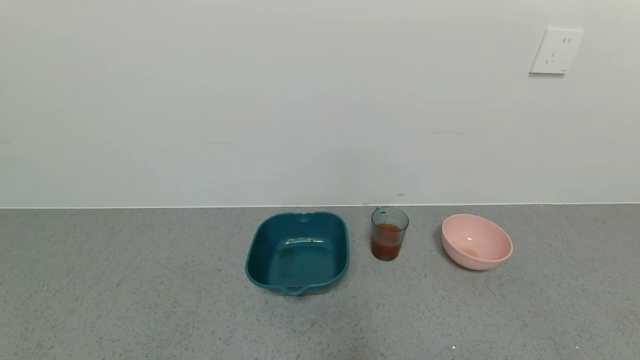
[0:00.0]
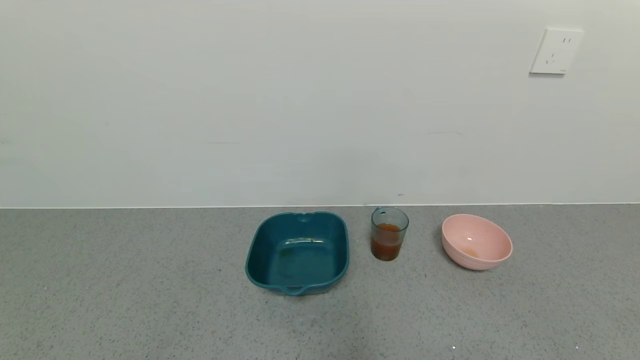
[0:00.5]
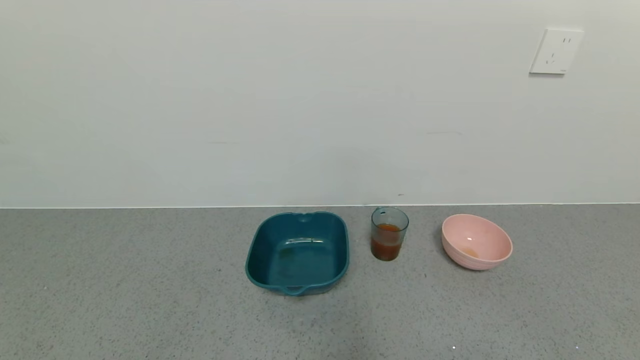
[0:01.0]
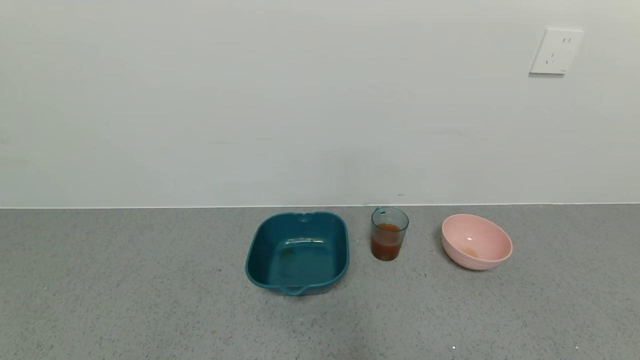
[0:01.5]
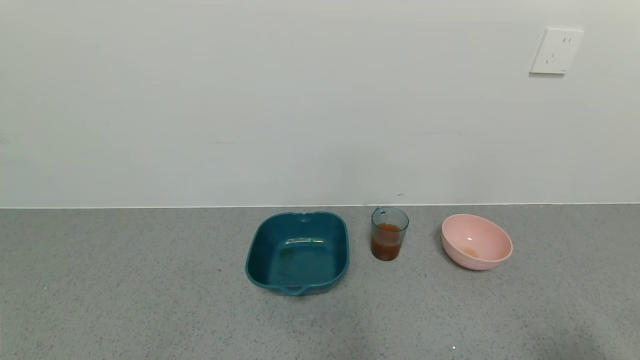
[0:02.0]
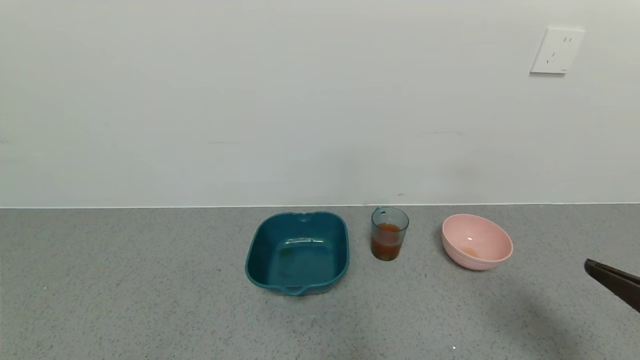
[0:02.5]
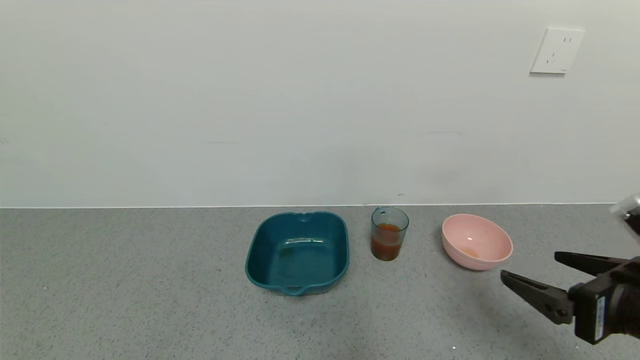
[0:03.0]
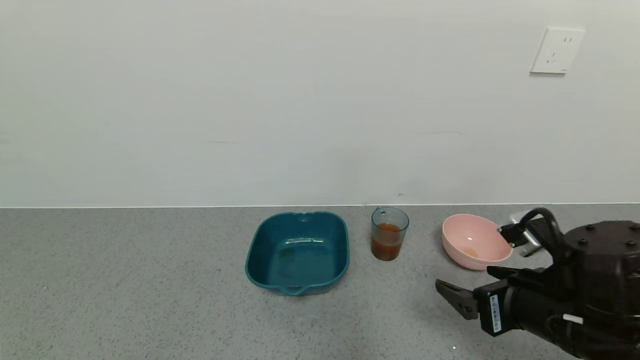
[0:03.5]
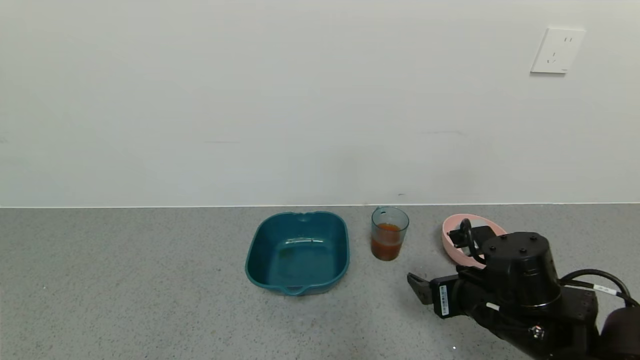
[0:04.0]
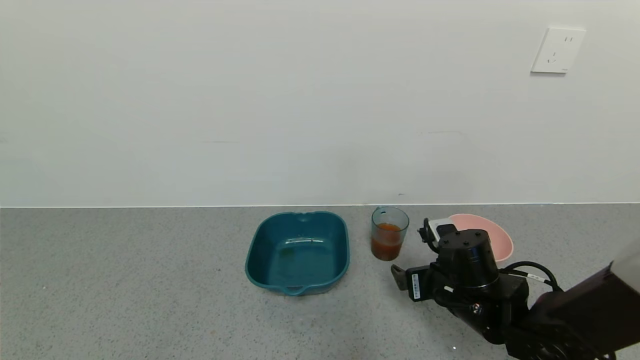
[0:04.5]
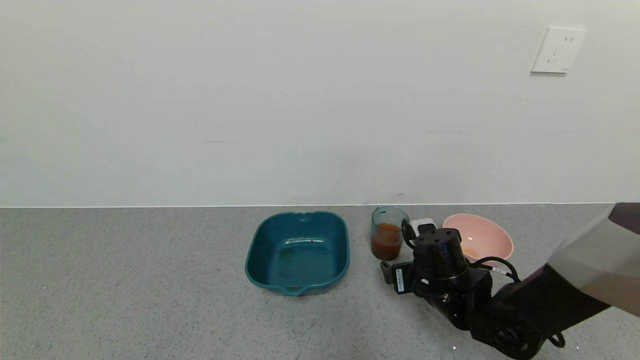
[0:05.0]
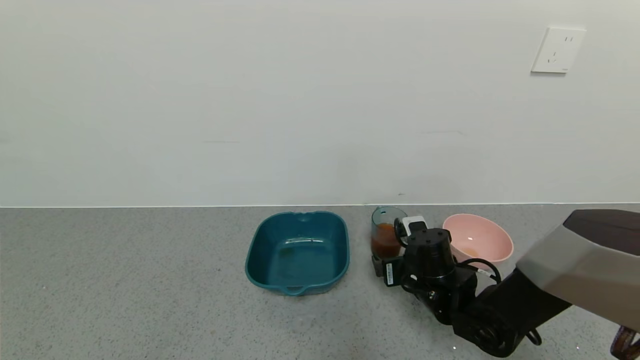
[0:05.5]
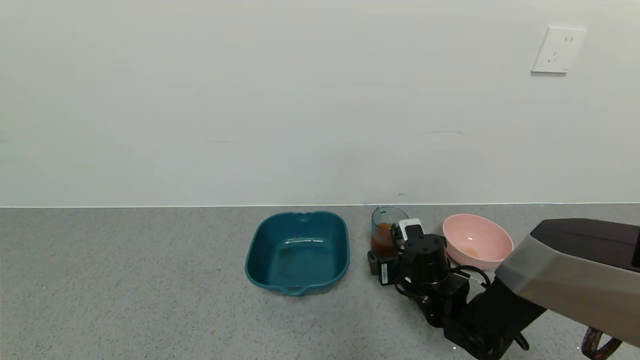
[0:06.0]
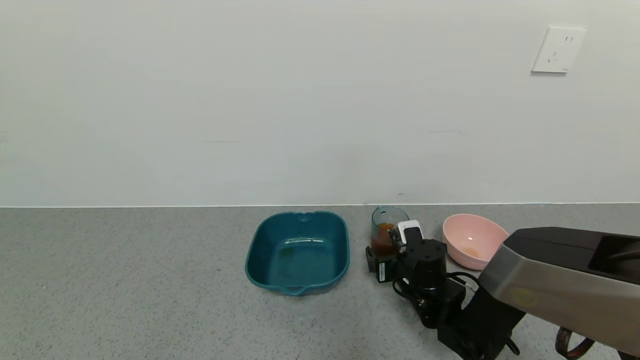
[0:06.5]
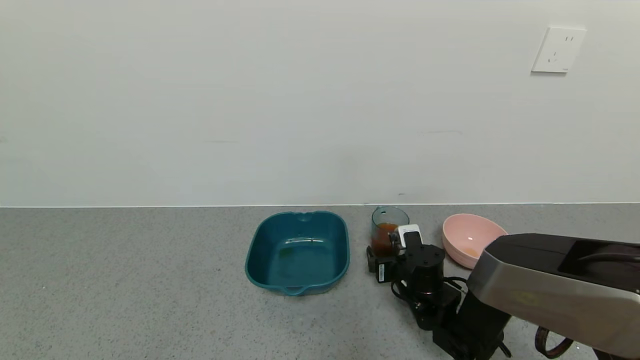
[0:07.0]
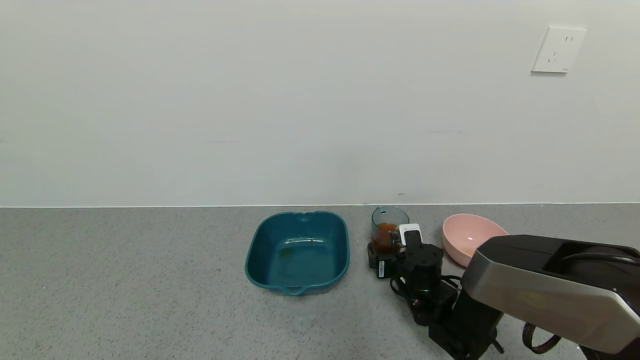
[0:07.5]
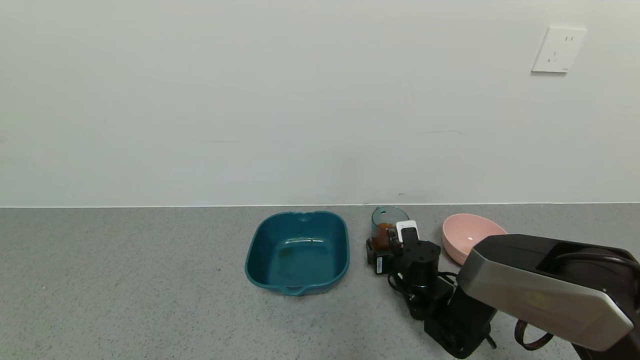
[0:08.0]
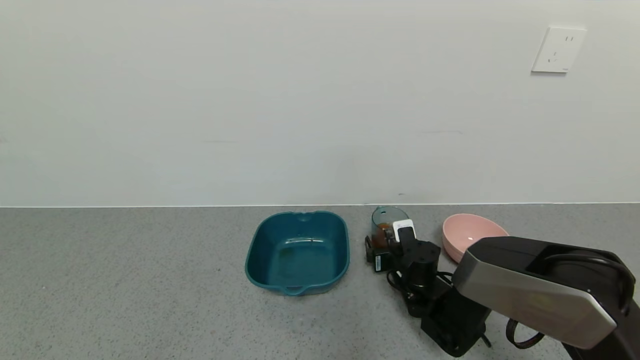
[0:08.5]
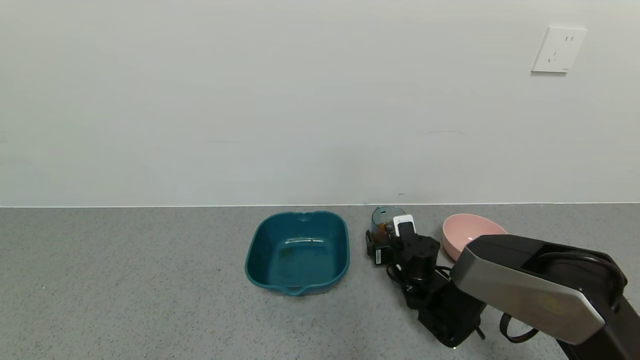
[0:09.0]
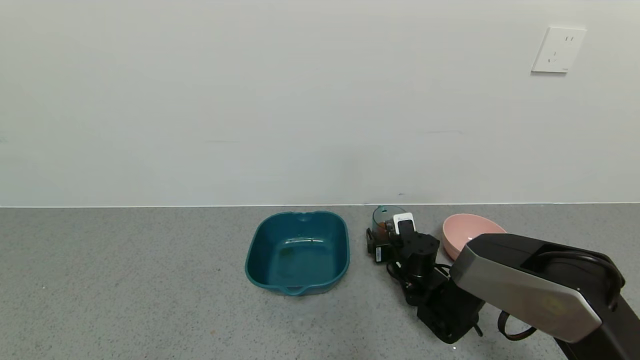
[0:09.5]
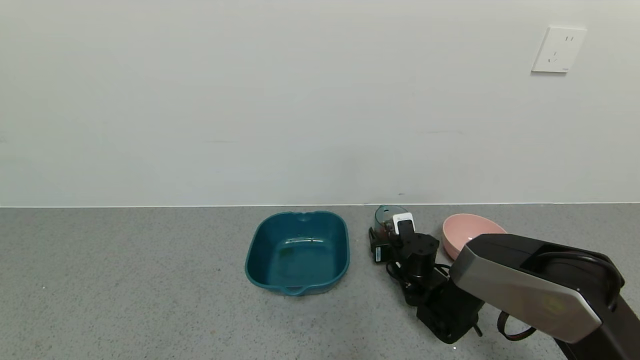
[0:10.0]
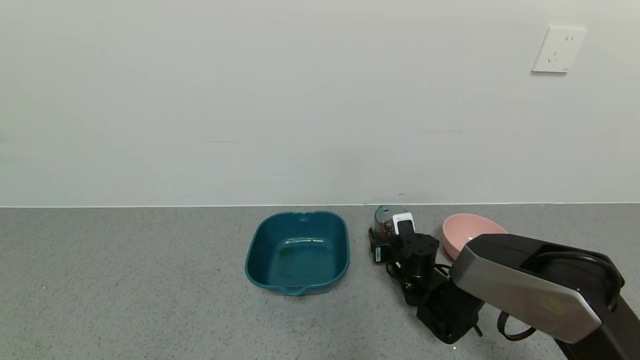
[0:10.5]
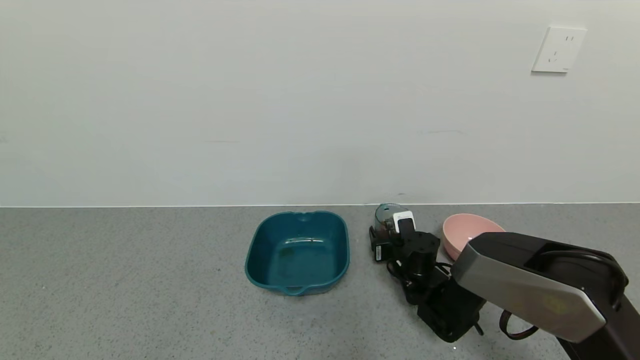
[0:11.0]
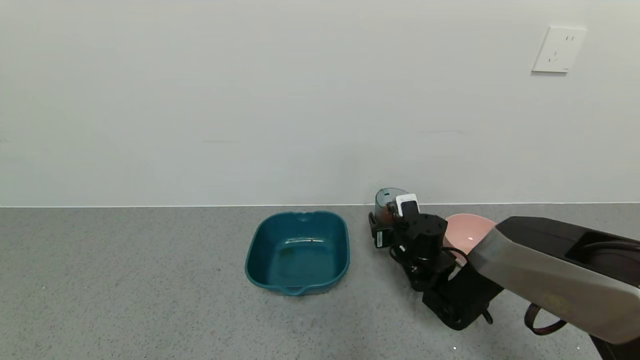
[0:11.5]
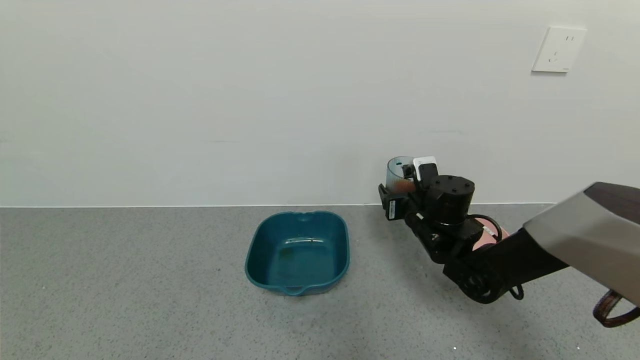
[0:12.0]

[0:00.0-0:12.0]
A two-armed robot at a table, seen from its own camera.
Task of the whole recording: use a gripper to pick up the cup and pour the liquid into a bowl or tray.
0:02.0 to 0:04.0: The right gripper shifts approximately 30 cm forward, to the left and downward.
0:04.0 to 0:06.0: The right gripper moves forward, downward and to the left, roughly 15 cm.
0:06.0 to 0:08.0: The right gripper shifts by about 5 cm.
0:08.0 to 0:10.0: The right gripper closes its fingers.
0:10.0 to 0:12.0: The right gripper is displaced upward by approximately 15 cm.

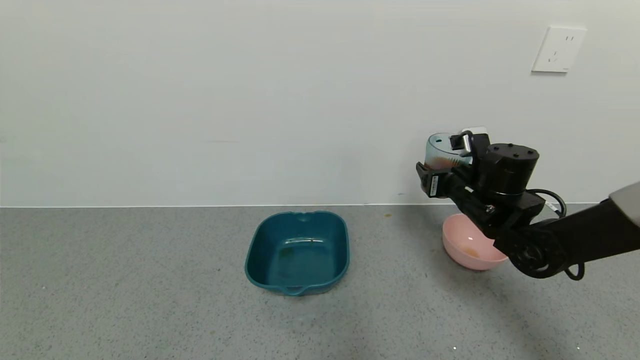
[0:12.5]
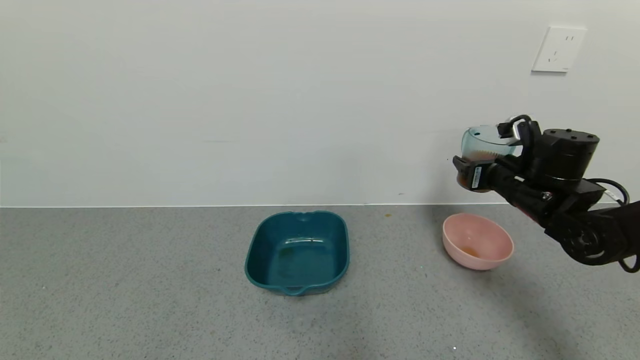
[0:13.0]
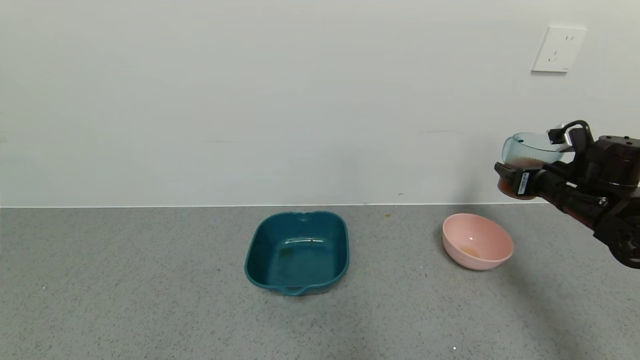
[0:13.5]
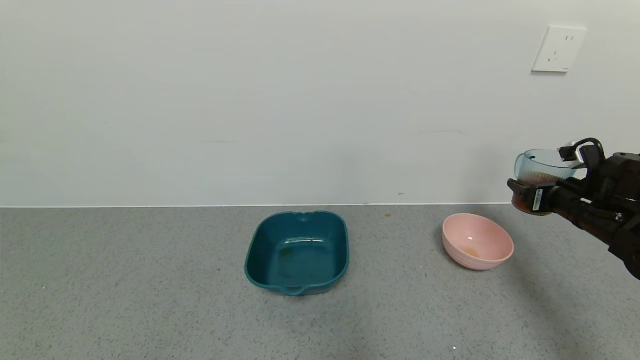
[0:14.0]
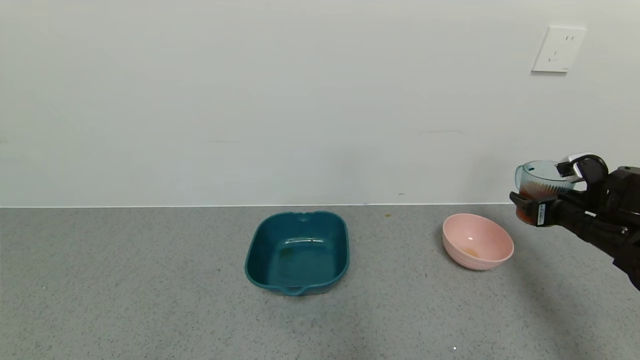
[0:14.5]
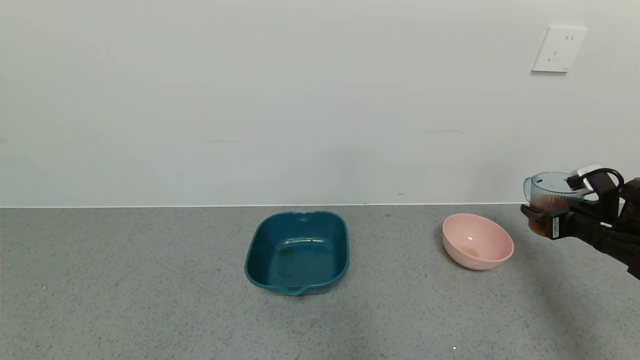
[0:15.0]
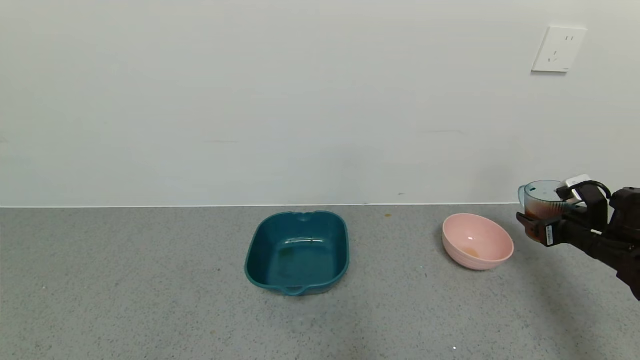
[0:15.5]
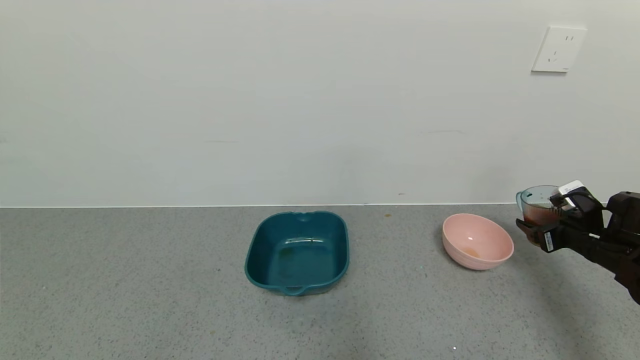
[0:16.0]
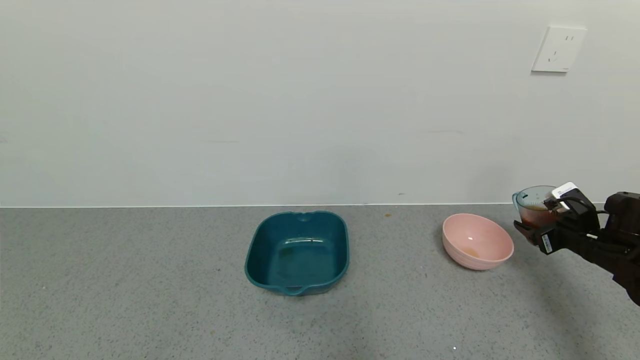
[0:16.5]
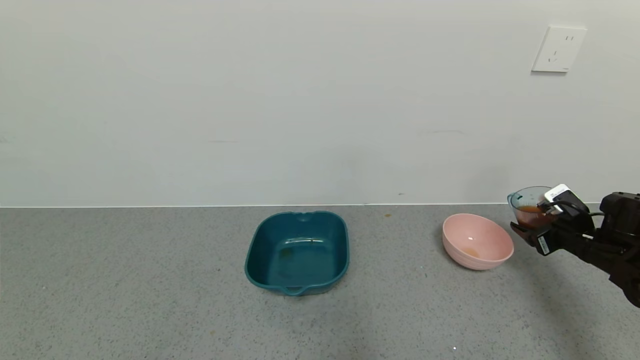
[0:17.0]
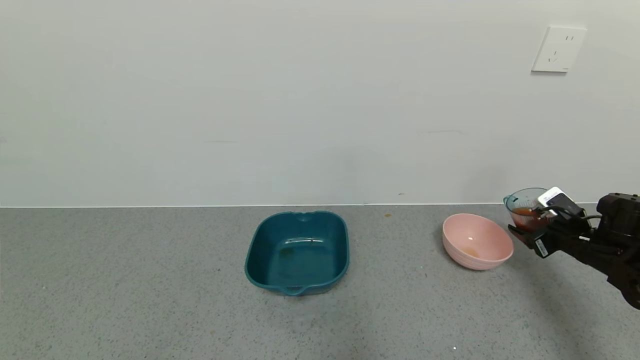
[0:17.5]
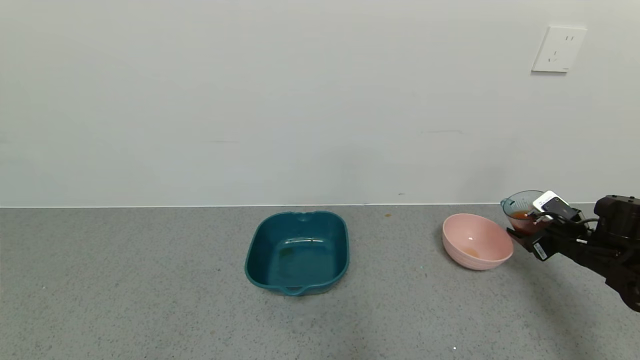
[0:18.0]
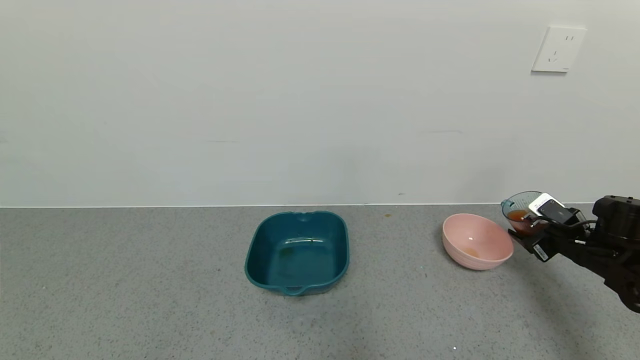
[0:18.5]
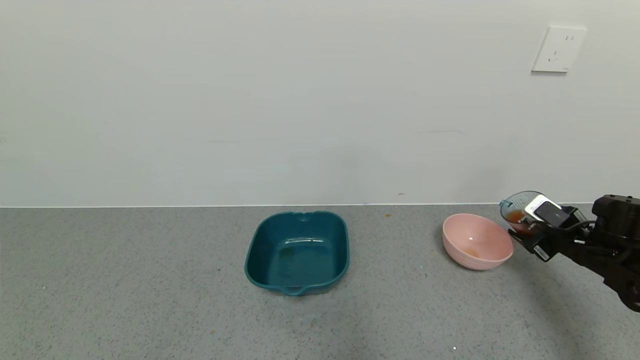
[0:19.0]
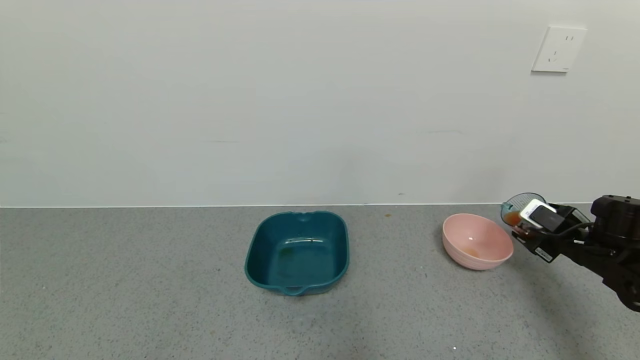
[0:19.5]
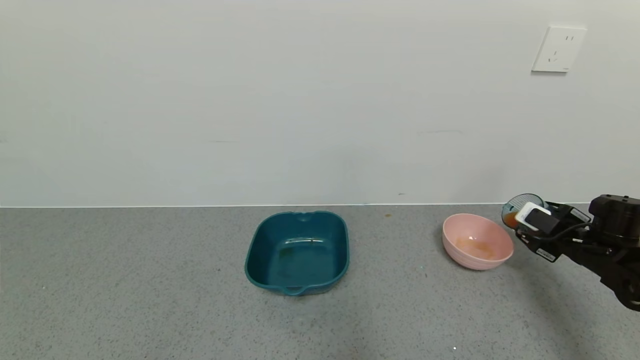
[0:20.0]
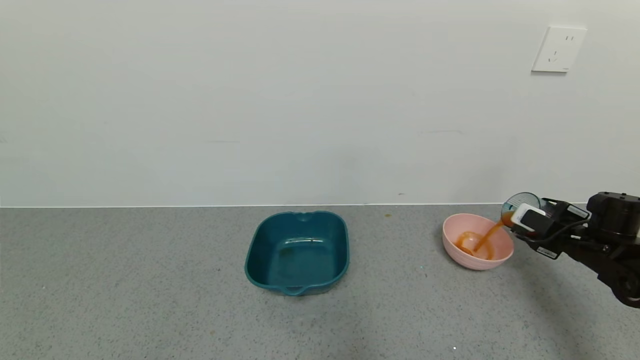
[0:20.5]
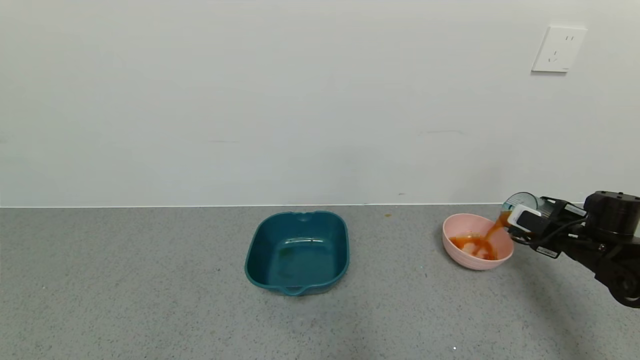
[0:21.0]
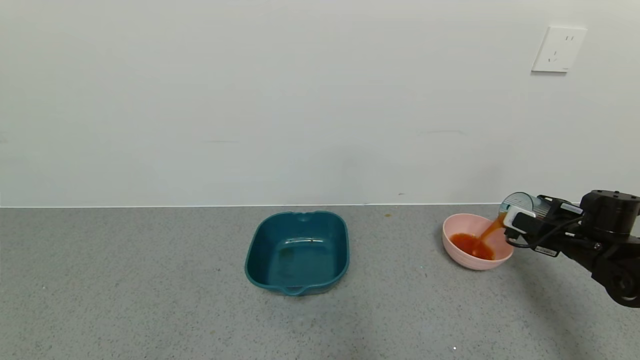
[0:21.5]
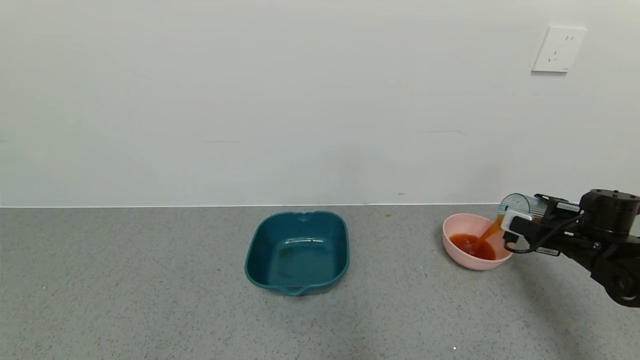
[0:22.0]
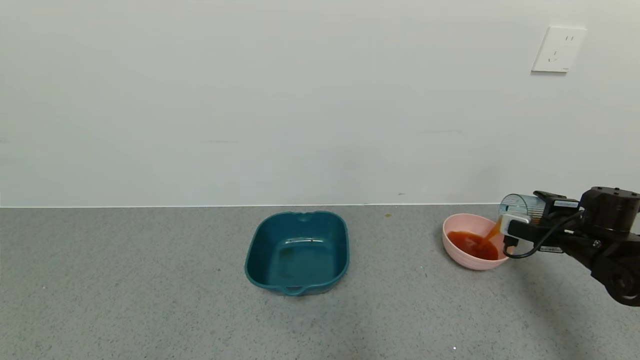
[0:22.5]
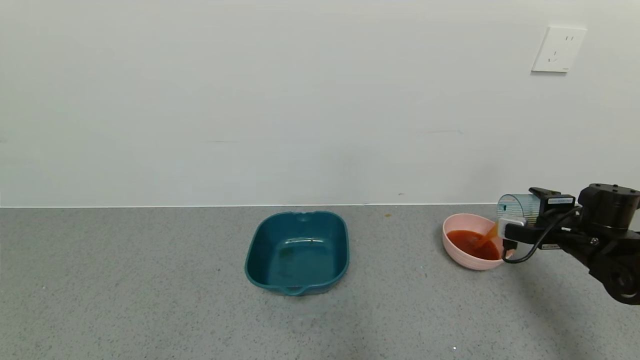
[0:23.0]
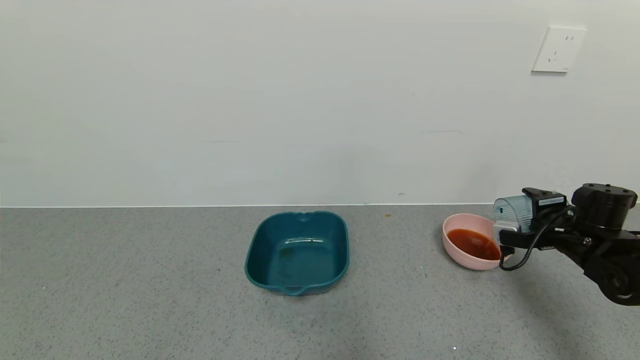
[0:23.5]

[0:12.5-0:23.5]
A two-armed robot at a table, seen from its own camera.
Task of the whole recording: use a gripper to pick up the cup and pour the liquid into a bowl or tray.
Step, 0:12.5 to 0:14.5: Pick up blue cup filled with tea with right gripper.
0:12.5 to 0:14.5: The right gripper travels to the right by some 15 cm.
0:14.5 to 0:16.0: The right gripper moves some 5 cm.
0:16.0 to 0:18.0: The grippers stay close to where they were, moving slightly.
0:20.0 to 0:21.5: The grippers make only small movements.
